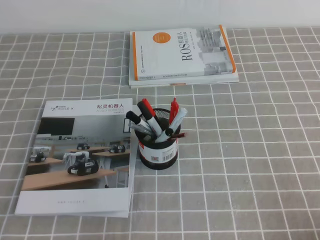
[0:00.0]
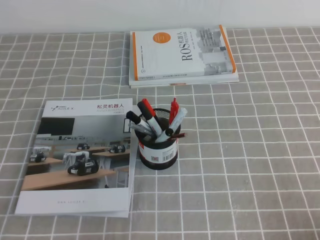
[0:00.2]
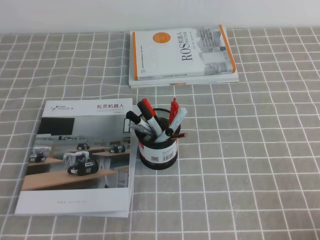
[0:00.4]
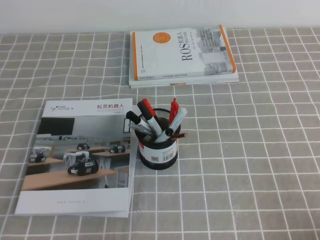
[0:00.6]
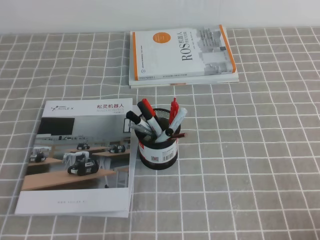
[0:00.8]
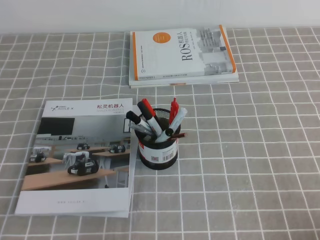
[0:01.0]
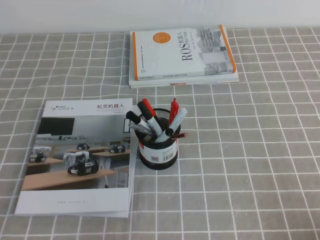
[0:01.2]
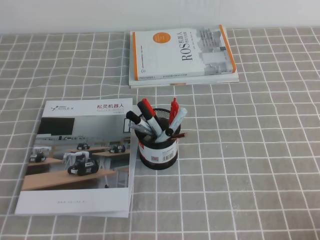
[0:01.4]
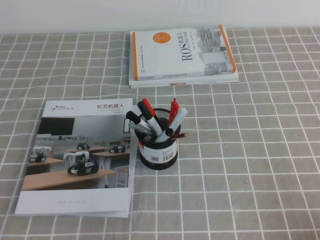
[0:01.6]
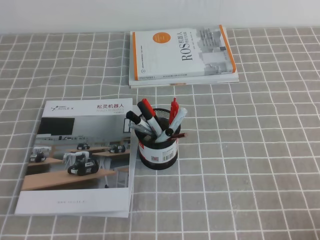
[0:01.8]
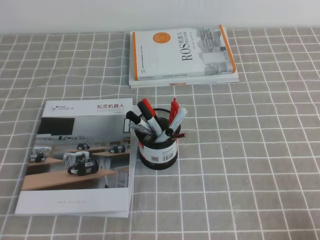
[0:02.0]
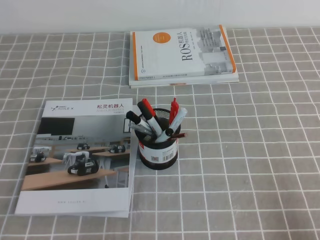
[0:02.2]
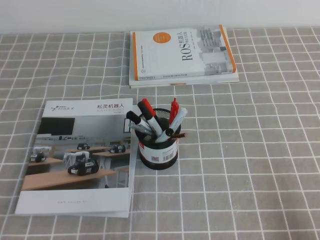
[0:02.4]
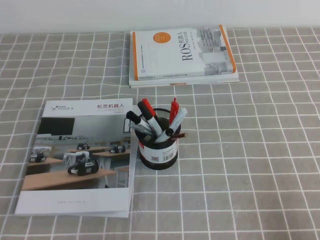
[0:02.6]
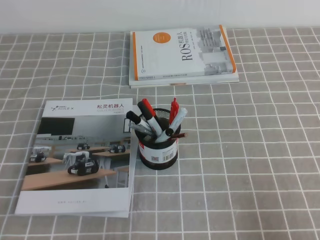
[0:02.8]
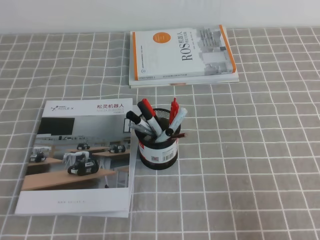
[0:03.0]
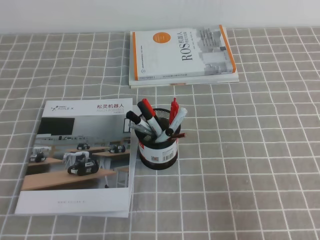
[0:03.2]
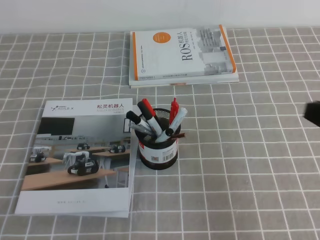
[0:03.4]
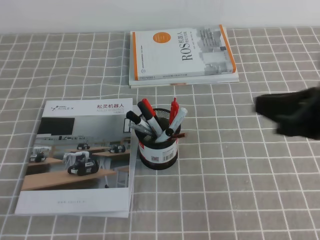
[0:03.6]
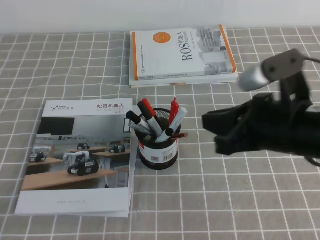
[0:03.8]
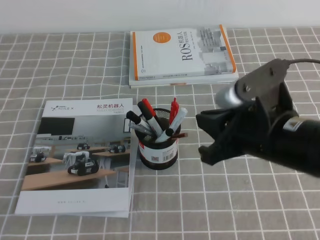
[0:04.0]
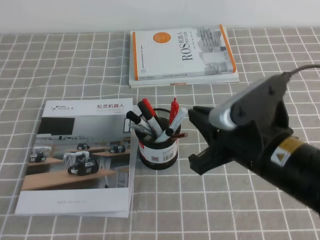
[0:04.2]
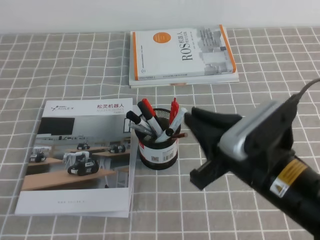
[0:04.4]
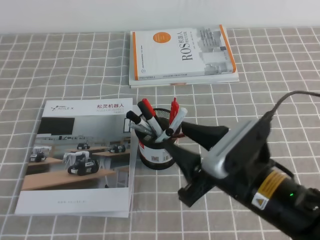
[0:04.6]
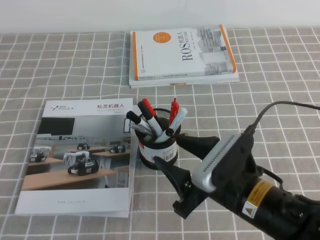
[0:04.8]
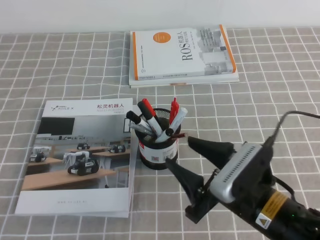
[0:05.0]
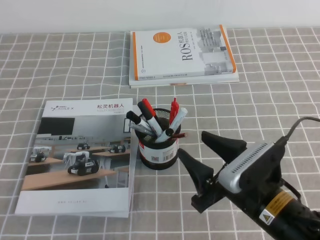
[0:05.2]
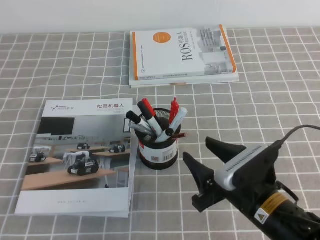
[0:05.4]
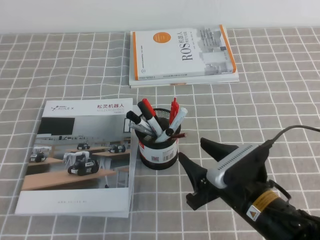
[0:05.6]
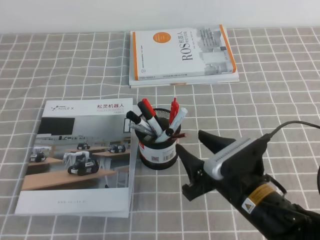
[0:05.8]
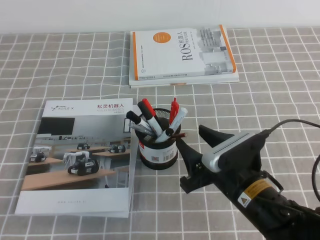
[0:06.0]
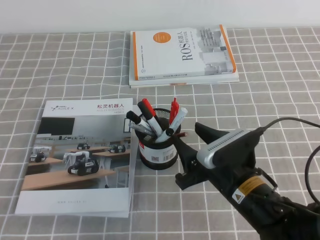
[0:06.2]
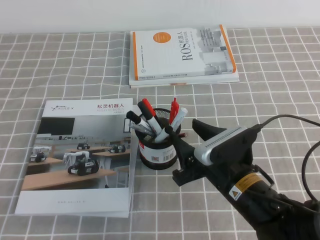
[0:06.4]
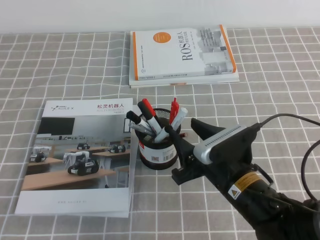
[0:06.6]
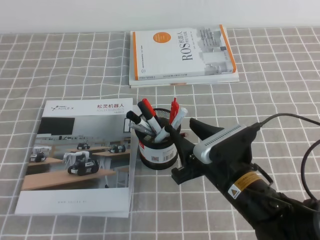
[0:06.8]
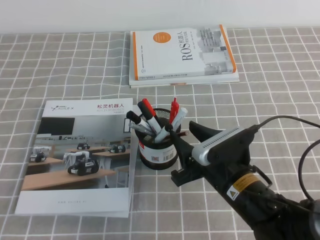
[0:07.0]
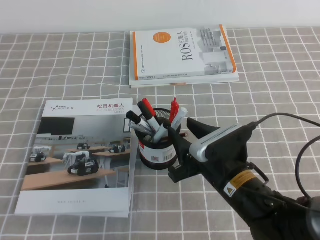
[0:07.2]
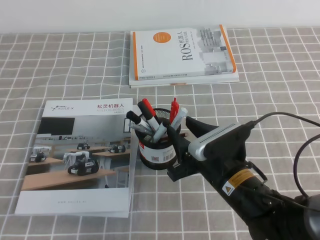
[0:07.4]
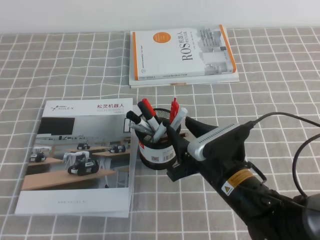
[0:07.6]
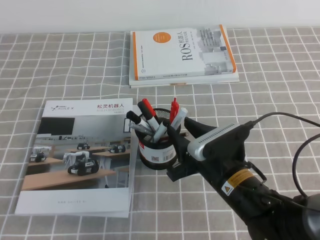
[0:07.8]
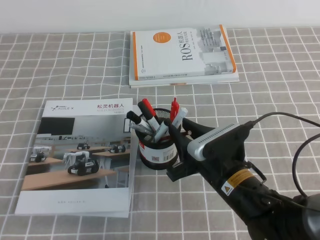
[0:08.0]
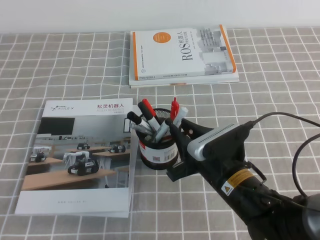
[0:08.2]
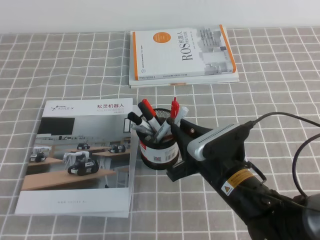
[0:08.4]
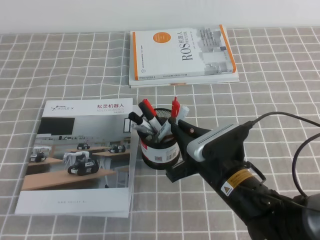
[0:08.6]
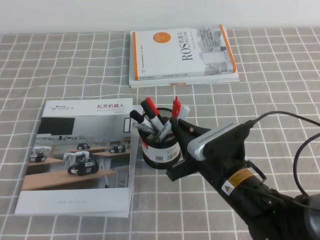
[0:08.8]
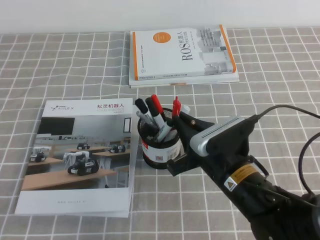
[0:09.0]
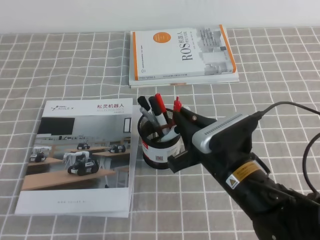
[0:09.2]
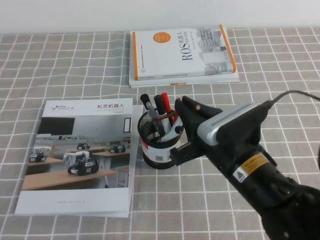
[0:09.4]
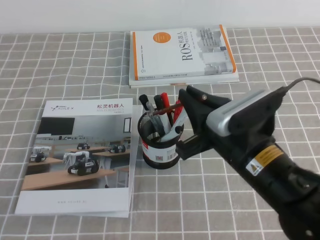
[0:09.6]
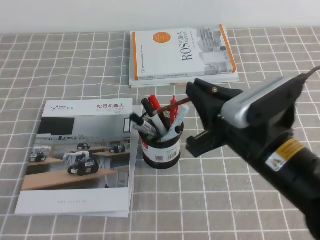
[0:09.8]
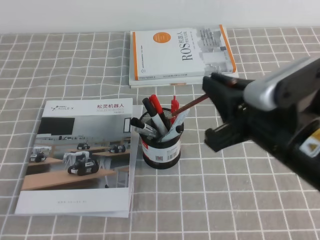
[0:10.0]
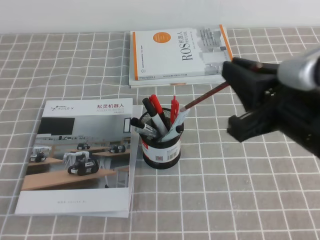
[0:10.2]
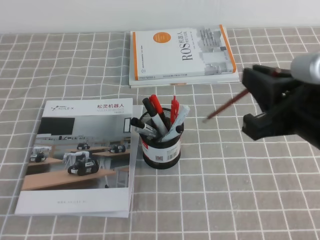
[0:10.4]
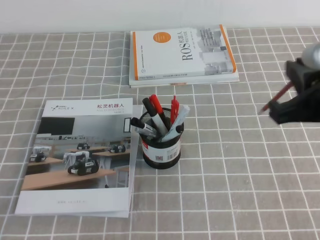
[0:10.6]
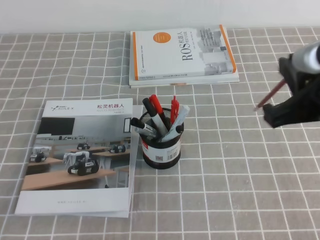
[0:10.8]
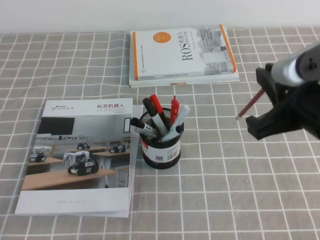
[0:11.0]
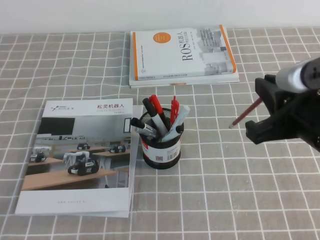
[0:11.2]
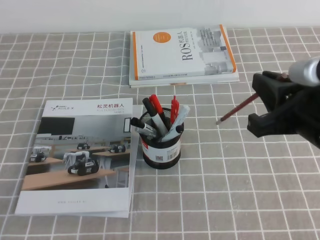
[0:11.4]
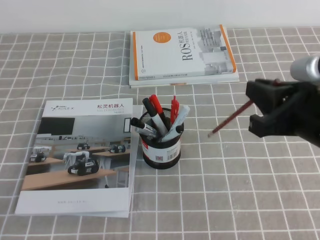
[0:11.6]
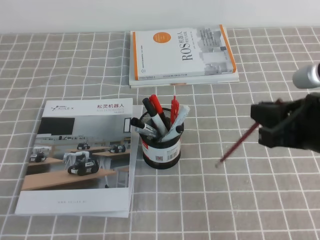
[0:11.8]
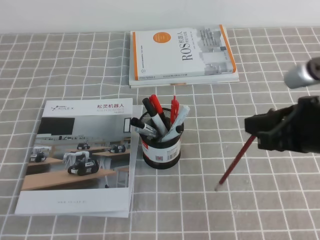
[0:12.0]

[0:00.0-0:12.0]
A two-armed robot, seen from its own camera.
0:01.6 to 0:03.0: The right gripper travels upward by roughly 10 cm.
0:03.0 to 0:04.4: The right gripper goes about 20 cm to the left and forward.
0:04.4 to 0:06.0: The right gripper shifts roughly 10 cm downward, and opens its fingers.
0:06.0 to 0:07.6: The grippers stay close to where they were, moving slightly.
0:07.6 to 0:09.0: The right gripper closes.
0:09.0 to 0:10.4: The right gripper shifts some 20 cm upward and to the right.
0:10.4 to 0:12.0: The right gripper shifts by approximately 5 cm.

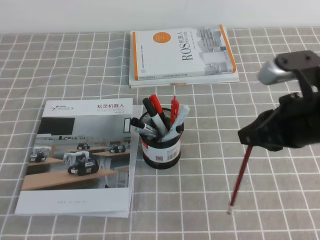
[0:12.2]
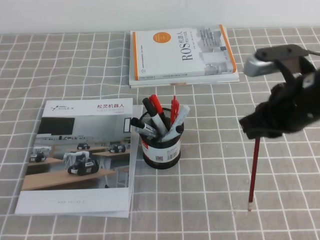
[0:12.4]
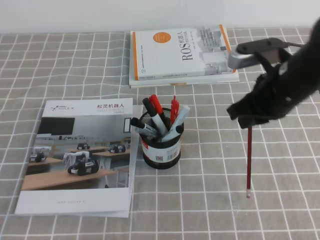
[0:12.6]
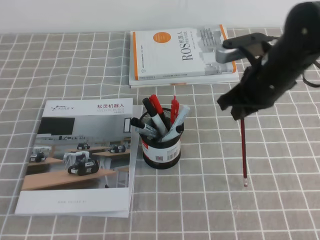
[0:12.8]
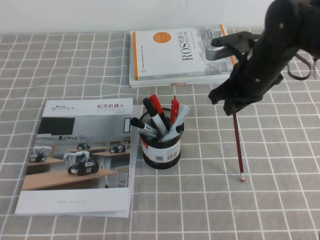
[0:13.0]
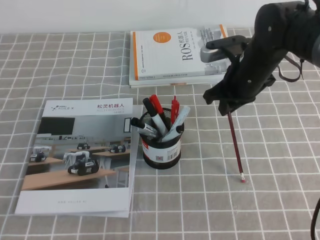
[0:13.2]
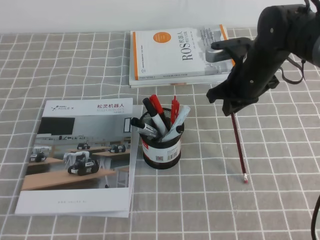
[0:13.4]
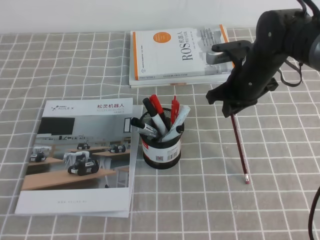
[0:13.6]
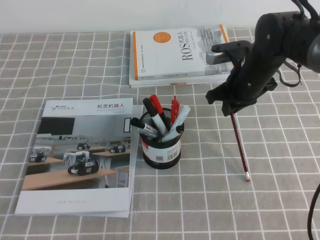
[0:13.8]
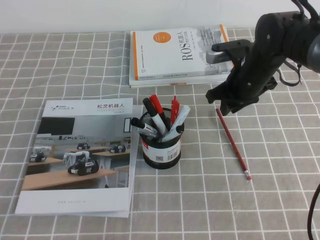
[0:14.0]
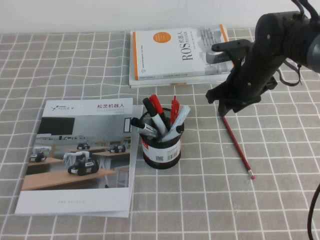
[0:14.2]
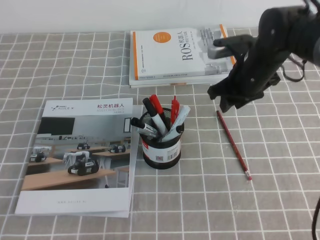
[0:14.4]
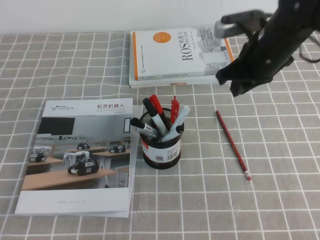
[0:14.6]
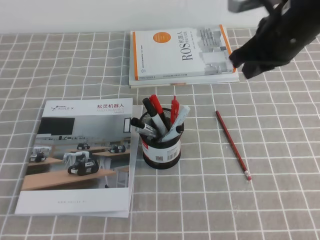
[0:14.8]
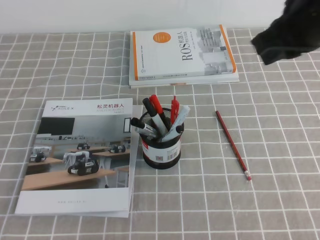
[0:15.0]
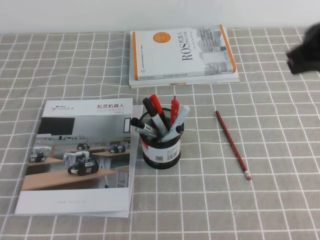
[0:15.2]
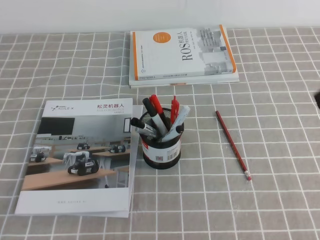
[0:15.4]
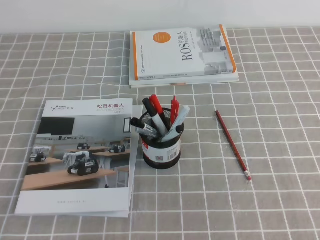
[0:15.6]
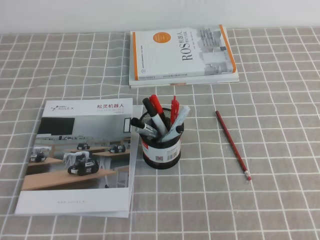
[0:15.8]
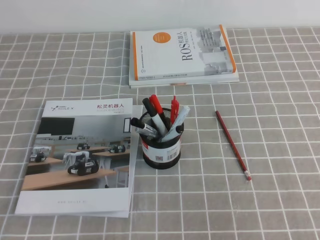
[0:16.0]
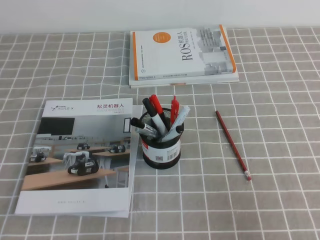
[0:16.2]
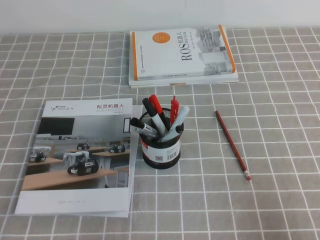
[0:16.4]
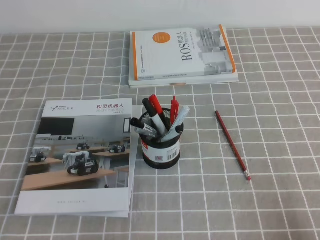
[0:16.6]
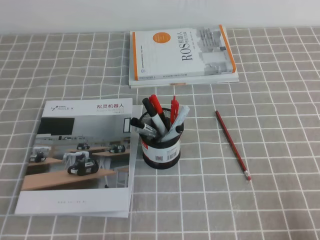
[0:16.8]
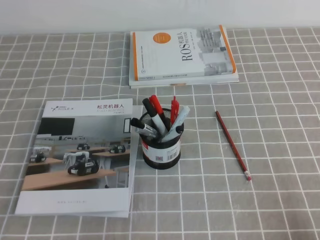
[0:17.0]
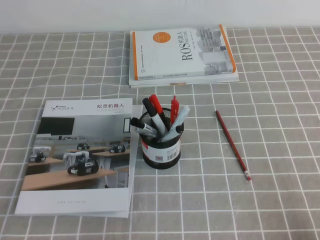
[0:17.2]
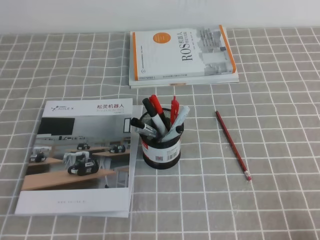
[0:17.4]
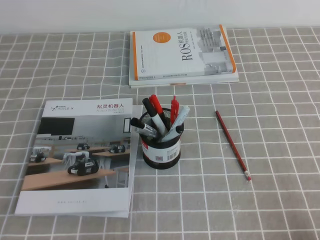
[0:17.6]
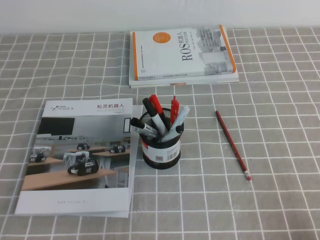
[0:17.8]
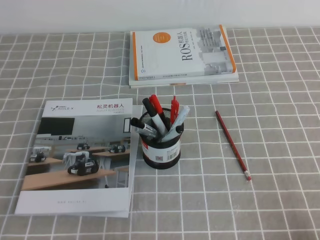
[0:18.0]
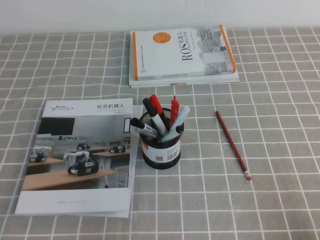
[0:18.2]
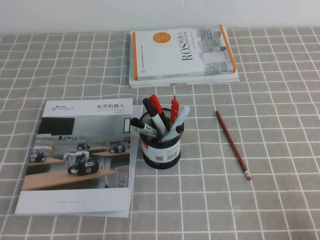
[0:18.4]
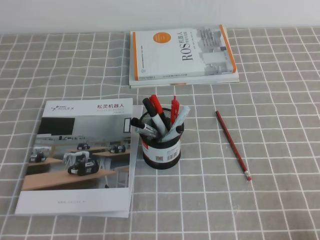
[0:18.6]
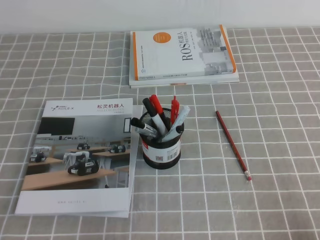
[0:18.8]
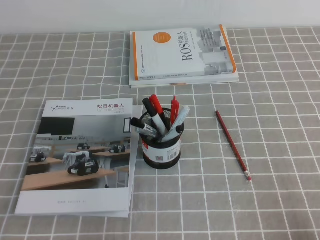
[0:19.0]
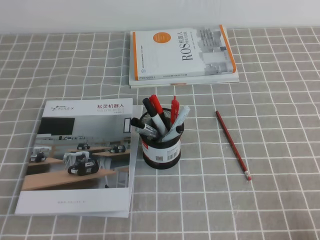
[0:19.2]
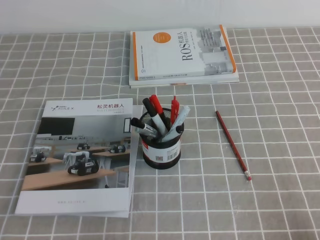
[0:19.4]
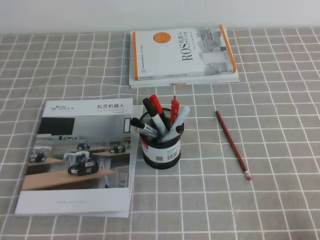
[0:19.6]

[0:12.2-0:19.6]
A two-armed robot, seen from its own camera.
Step, 0:12.2 to 0:19.6: Pick up the pen from the pen holder.
0:12.2 to 0:13.6: The right gripper is displaced forward by approximately 20 cm.
0:13.6 to 0:15.2: The right gripper moves upward and backward, roughly 20 cm, and opens, then closes once more.
0:15.2 to 0:16.6: The right gripper is displaced backward, downward and to the right by approximately 30 cm.
0:18.2 to 0:19.6: Both grippers stay put.
